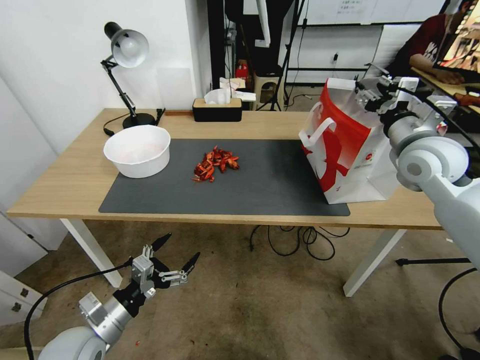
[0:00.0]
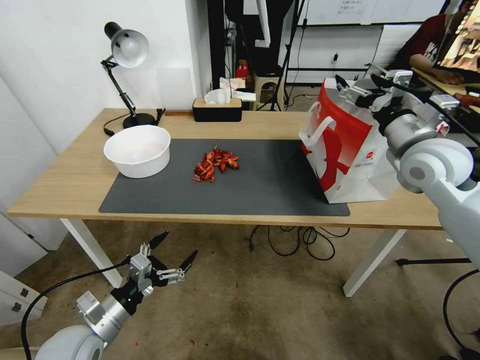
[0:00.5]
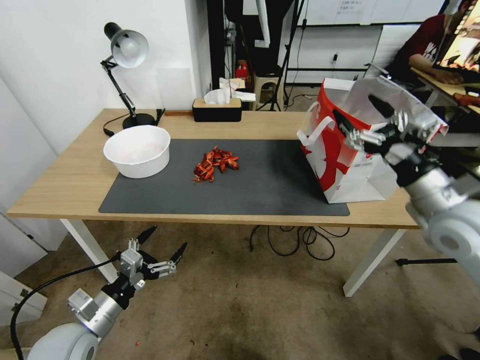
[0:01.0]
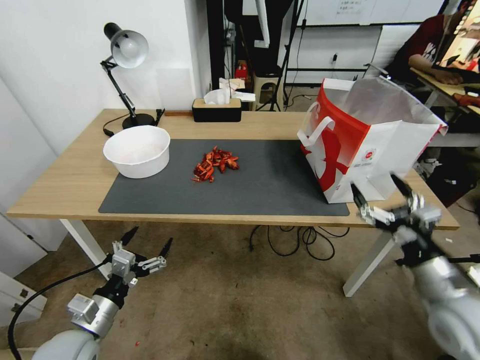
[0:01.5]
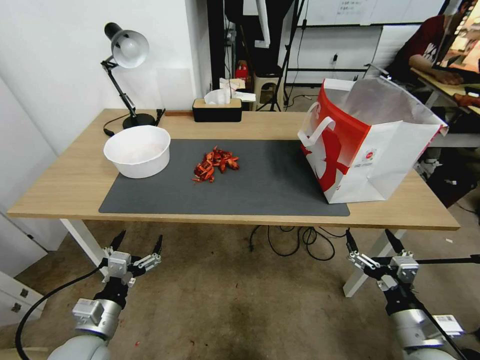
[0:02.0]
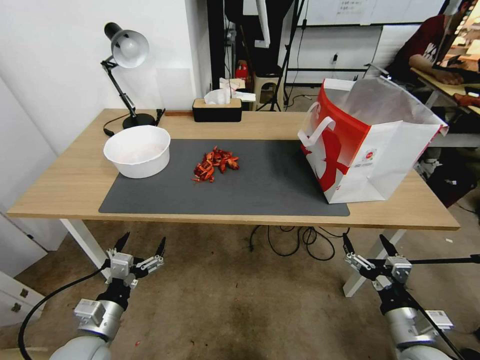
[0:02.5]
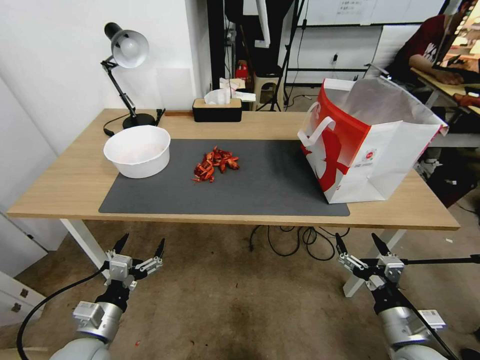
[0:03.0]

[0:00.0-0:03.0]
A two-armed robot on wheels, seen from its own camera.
0:00.0 to 0:01.5: The right gripper heads backward and downward, covering about 30 cm, and opens its fingers.
0:01.5 to 0:03.0: The right gripper goes some 10 cm downward and backward.
